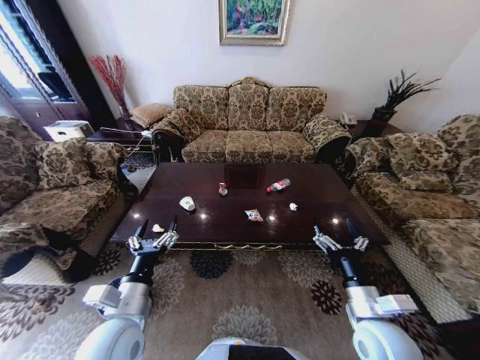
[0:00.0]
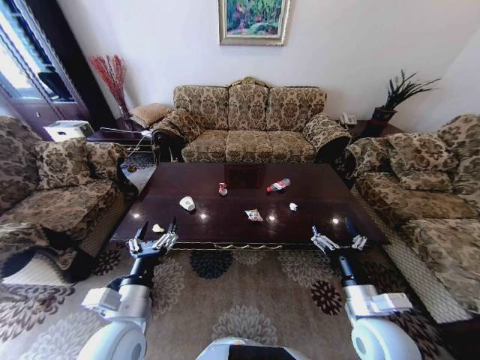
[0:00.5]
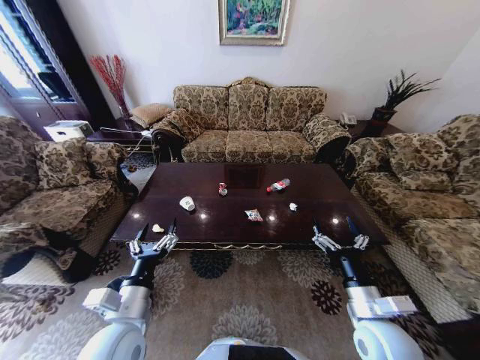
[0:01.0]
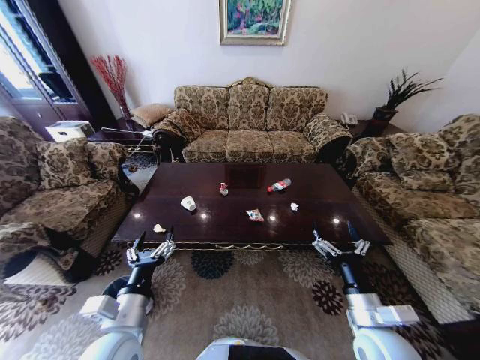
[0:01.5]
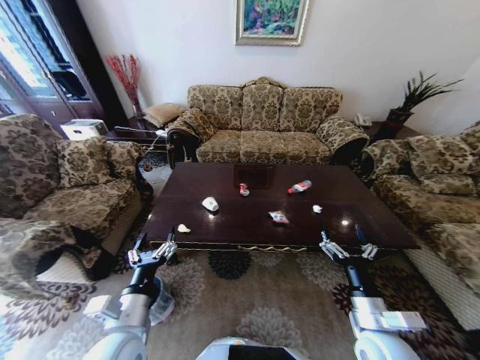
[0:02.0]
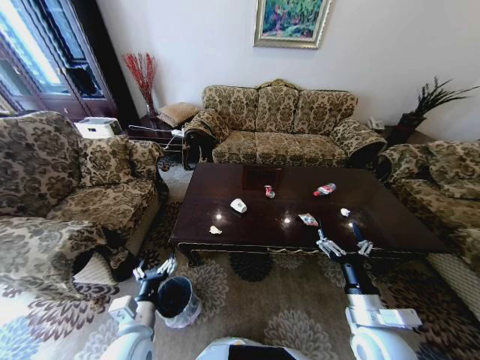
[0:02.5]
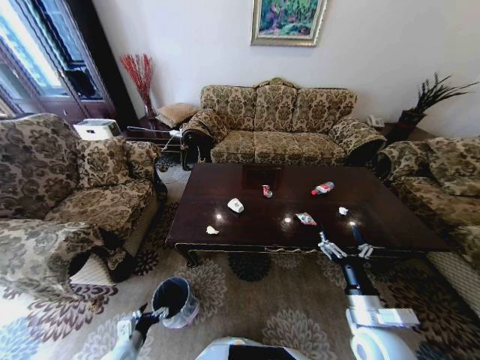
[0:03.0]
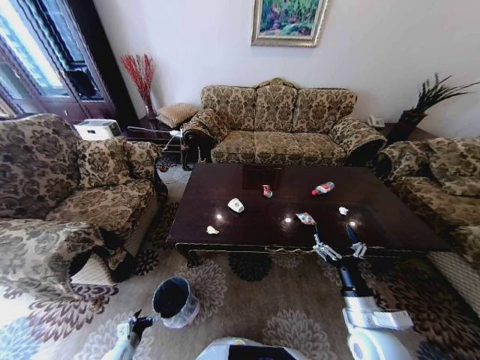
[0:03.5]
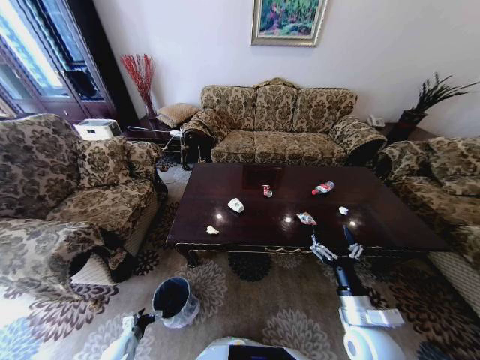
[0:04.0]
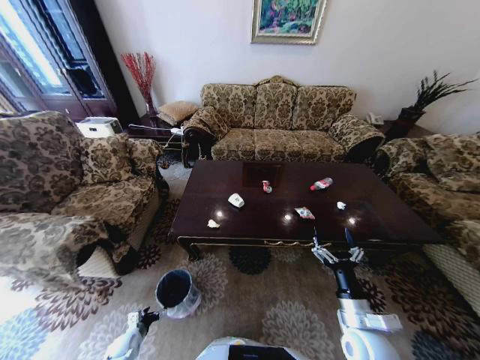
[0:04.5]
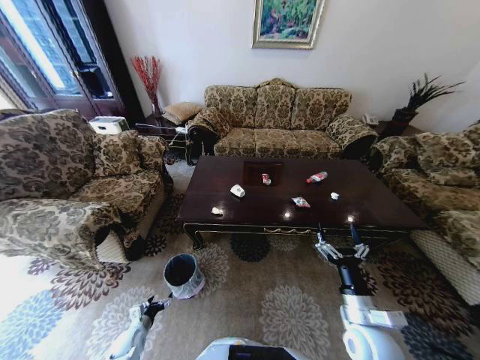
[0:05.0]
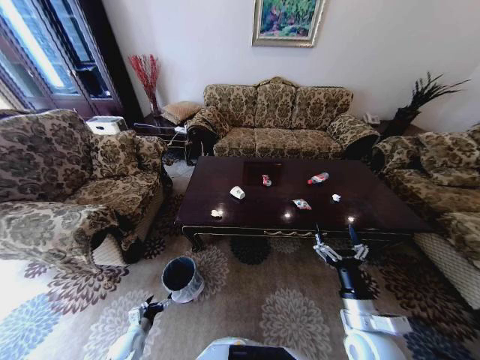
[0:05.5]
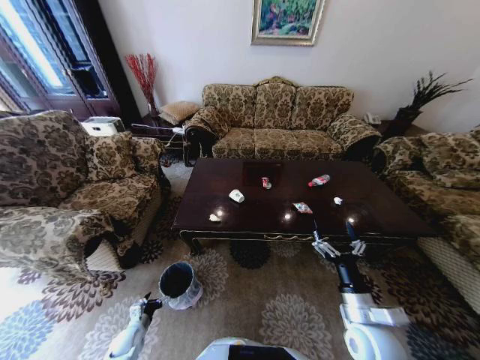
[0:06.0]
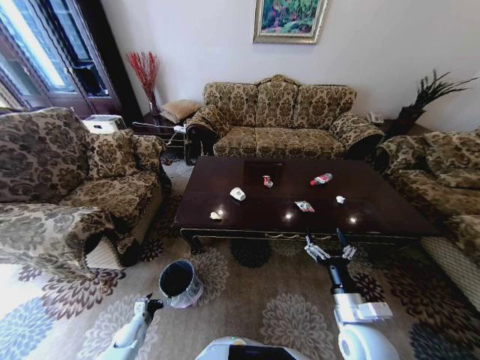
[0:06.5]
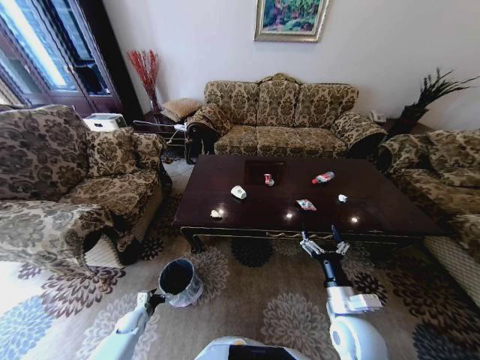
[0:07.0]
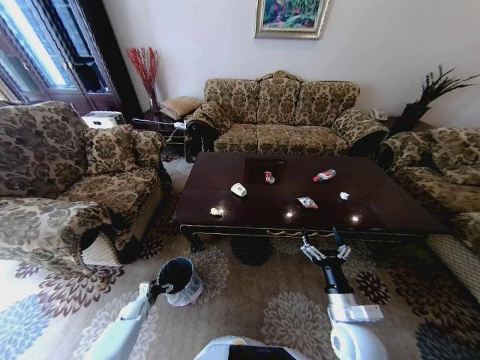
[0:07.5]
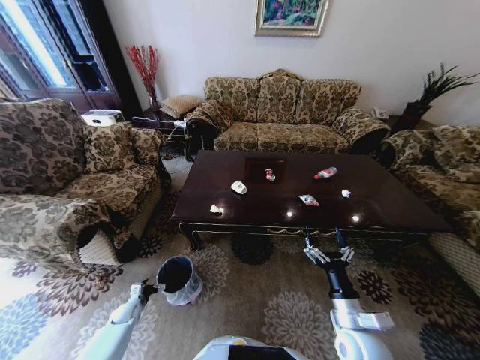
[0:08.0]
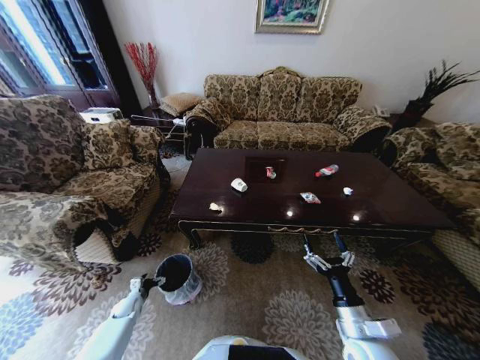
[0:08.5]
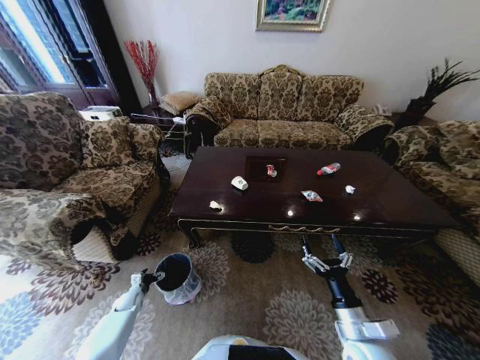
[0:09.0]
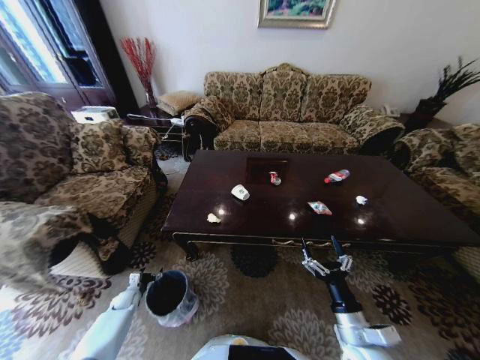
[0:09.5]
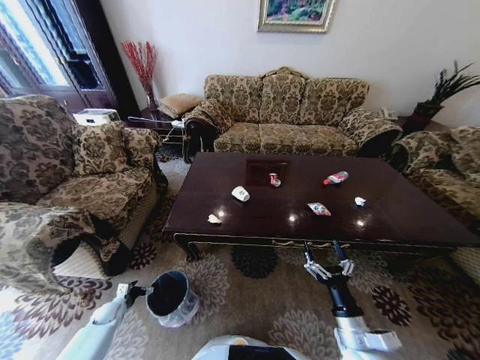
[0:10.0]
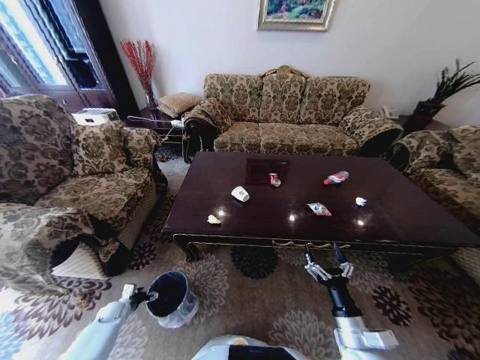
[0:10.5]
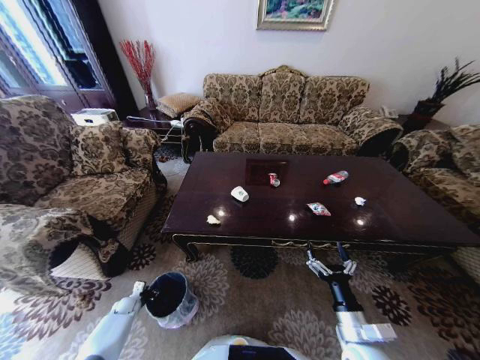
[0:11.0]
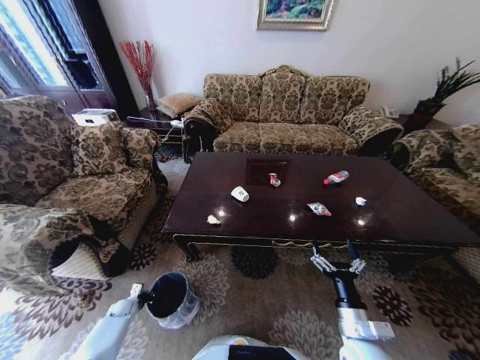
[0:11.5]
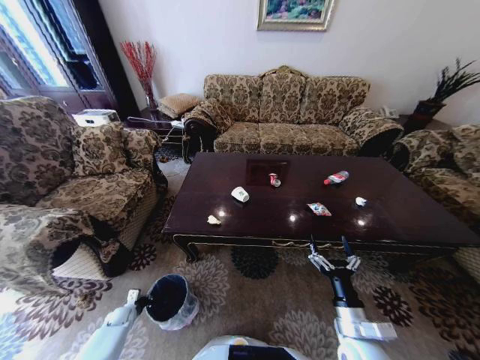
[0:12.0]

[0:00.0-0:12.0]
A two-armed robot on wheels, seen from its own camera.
Task of the whole recording: Move to the front of the table and place the trash on the table into the trash bin.
0:02.0 to 0:04.0: The left gripper travels downward and to the left by some 40 cm.
0:04.0 to 0:06.0: The left gripper moves roughly 5 cm.
0:06.0 to 0:08.0: The left gripper goes roughly 10 cm forward and to the left.
0:08.0 to 0:10.0: The left gripper ends up approximately 5 cm from where it was.
0:10.0 to 0:12.0: The left gripper shifts by roughly 5 cm, and closes its fingers.

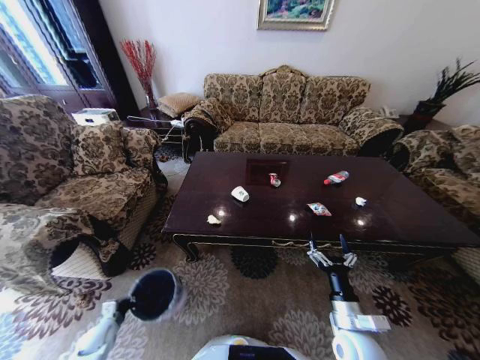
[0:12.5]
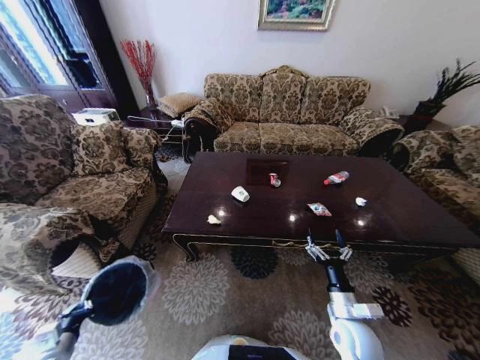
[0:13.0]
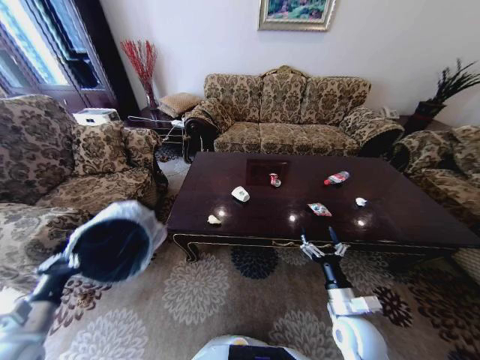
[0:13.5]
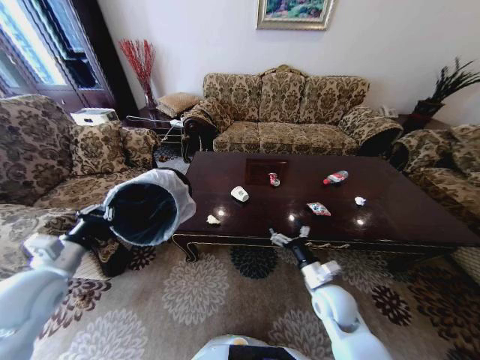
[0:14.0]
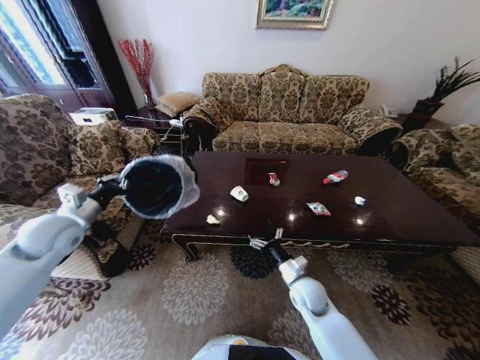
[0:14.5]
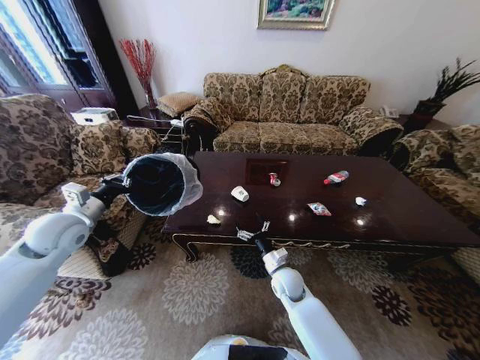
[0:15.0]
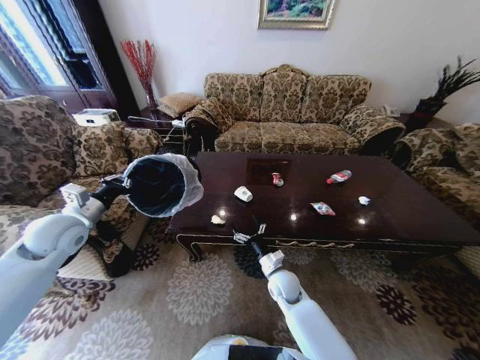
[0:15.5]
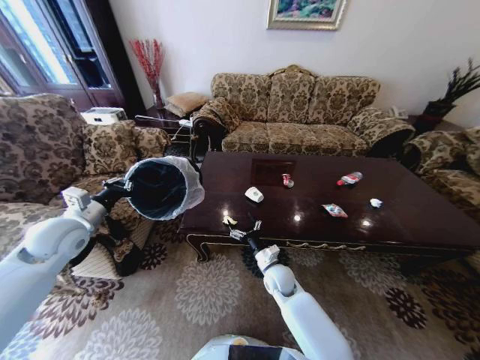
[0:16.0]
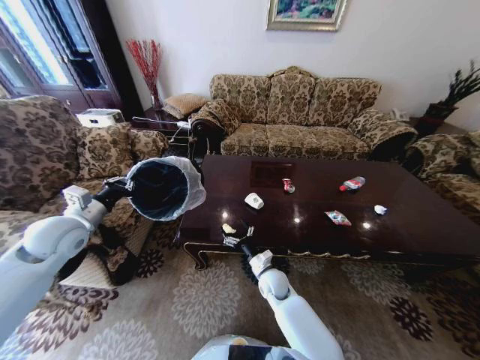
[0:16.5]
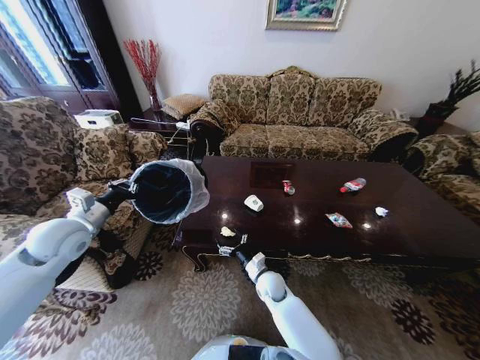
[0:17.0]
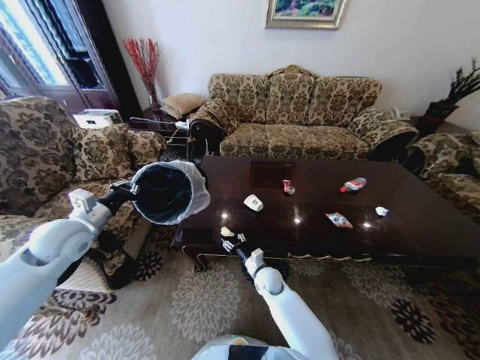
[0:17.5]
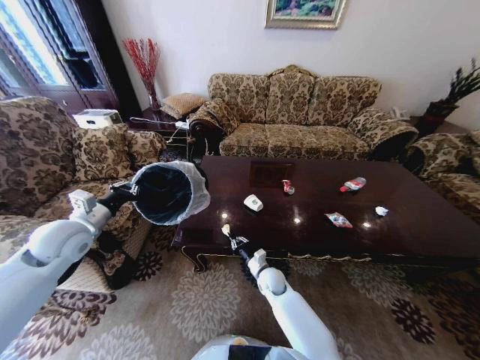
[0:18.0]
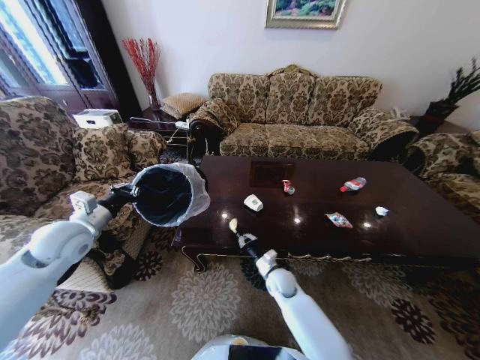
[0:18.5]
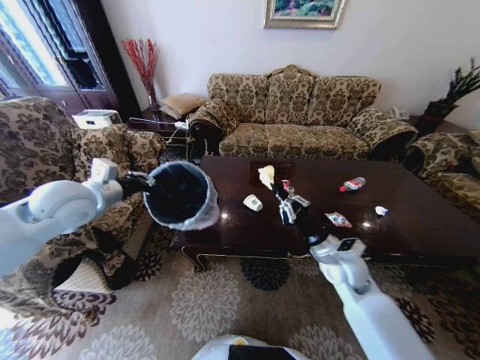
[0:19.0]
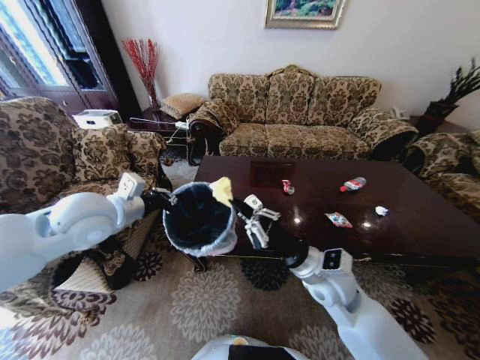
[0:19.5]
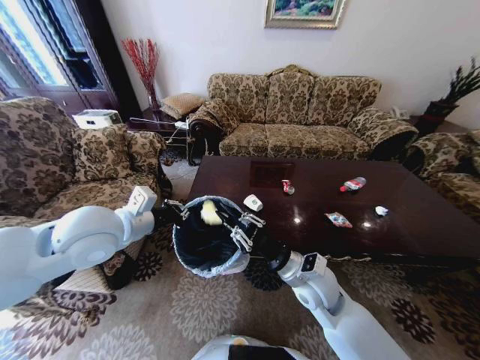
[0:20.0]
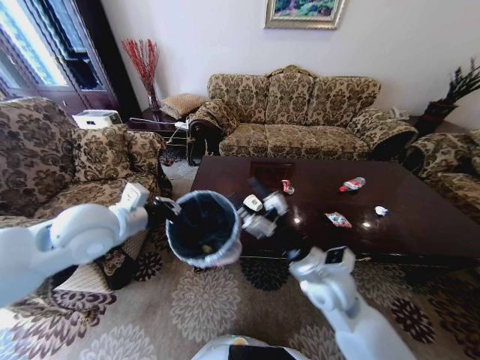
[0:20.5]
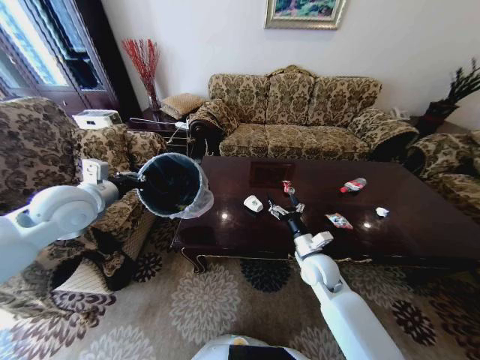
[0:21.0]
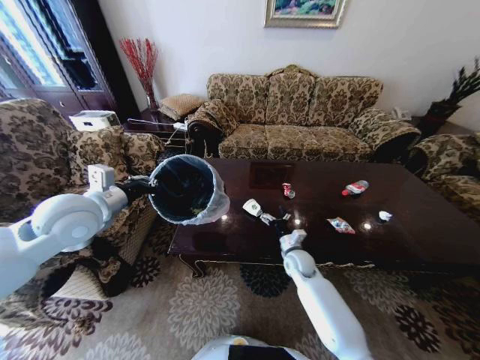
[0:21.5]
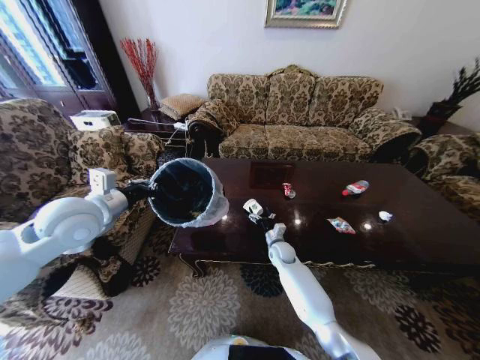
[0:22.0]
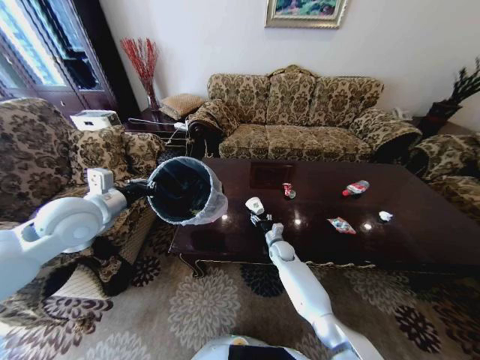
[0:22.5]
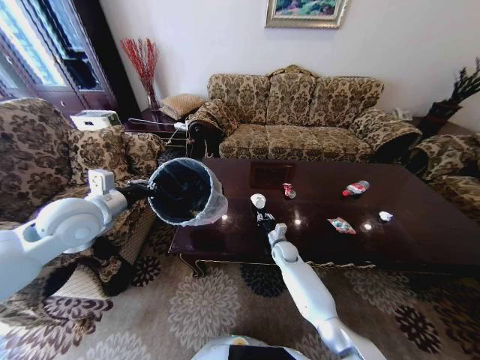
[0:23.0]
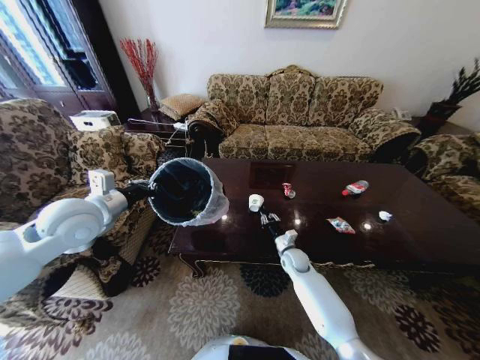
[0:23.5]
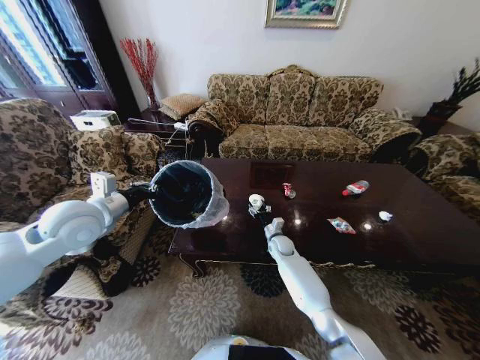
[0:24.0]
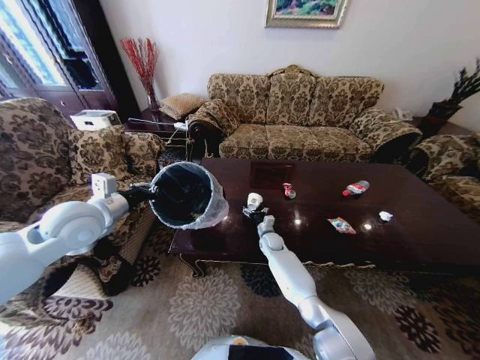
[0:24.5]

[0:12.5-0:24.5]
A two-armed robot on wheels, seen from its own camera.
Task of the whole recording: Move to the front of the table and place the trash on the table into the trash bin.
0:12.5 to 0:14.5: The right gripper heads forward and to the left, covering approximately 15 cm. The left gripper moves upward, approximately 40 cm.
0:14.5 to 0:16.5: The right gripper is displaced to the left by about 10 cm.
0:16.5 to 0:18.5: The right gripper closes.
0:18.5 to 0:20.5: The left gripper shifts roughly 15 cm to the right and upward. The right gripper goes roughly 25 cm upward, and opens up.
0:20.5 to 0:22.5: The right gripper shifts roughly 30 cm downward and forward. Meanwhile the left gripper goes about 5 cm to the left.
0:22.5 to 0:24.5: The right gripper changes place by roughly 5 cm, and closes and opens again.

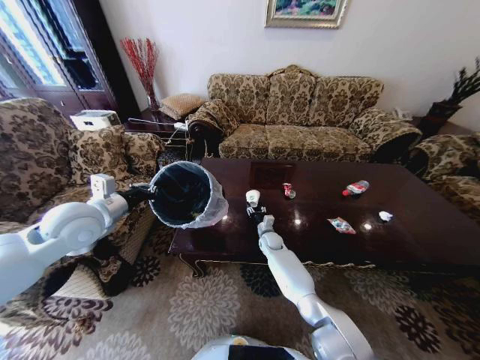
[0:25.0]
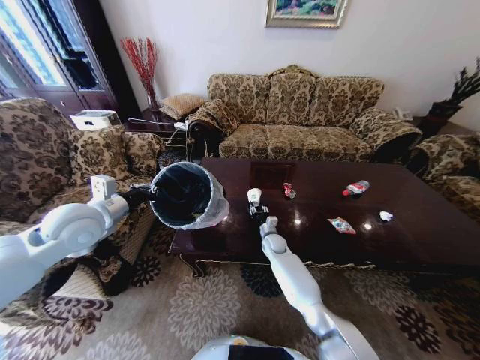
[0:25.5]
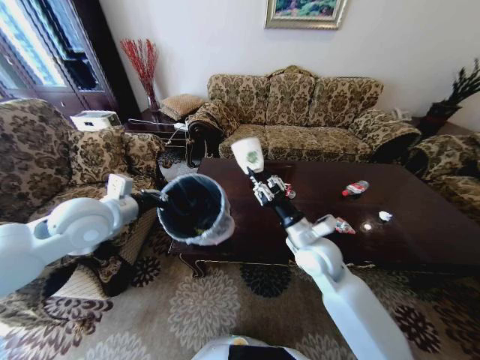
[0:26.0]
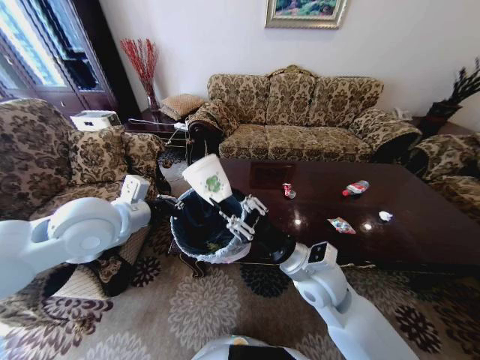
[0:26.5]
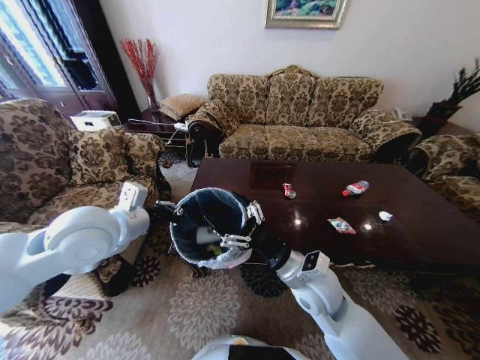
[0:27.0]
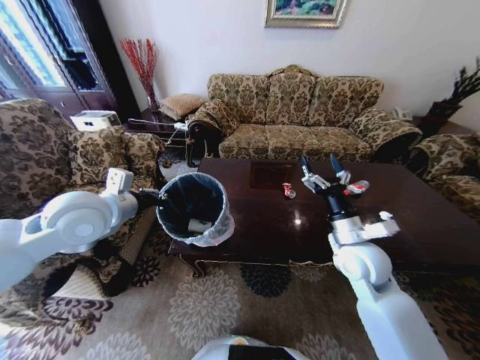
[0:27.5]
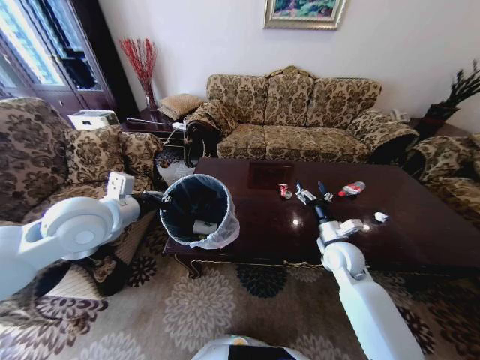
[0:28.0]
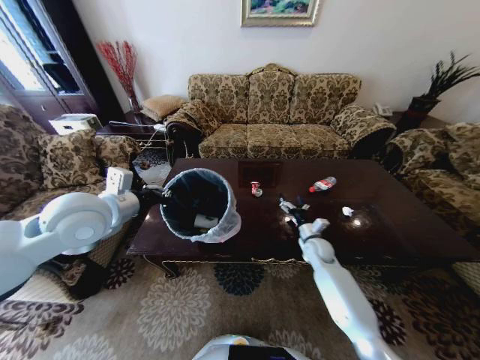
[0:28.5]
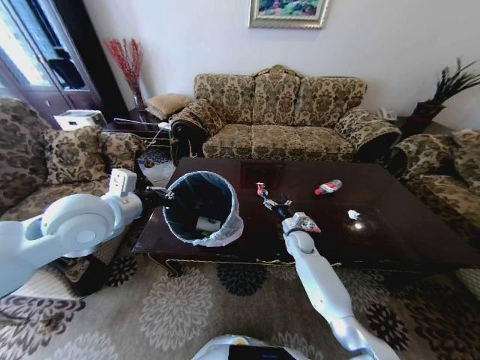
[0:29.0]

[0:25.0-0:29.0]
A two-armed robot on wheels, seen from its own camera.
Task of the whole recording: Move to the front of the table and place the trash on the table into the trash bin.
0:25.0 to 0:27.0: The right gripper is displaced backward and upward by some 35 cm; the left gripper moves to the right, approximately 10 cm.
0:27.0 to 0:29.0: The right gripper is displaced forward and downward by some 25 cm.
